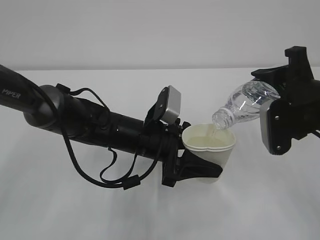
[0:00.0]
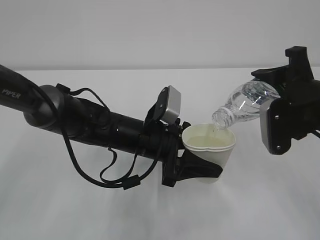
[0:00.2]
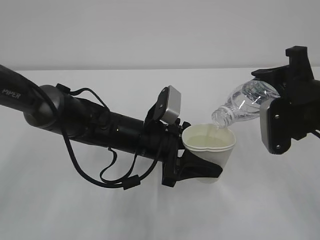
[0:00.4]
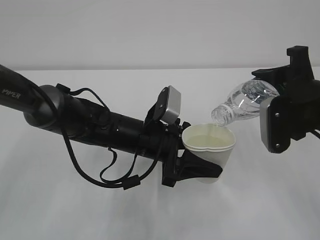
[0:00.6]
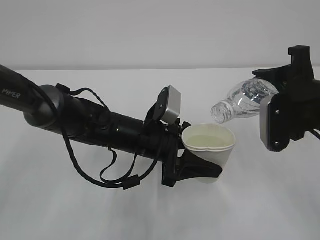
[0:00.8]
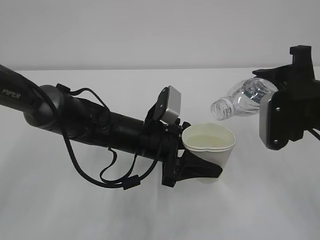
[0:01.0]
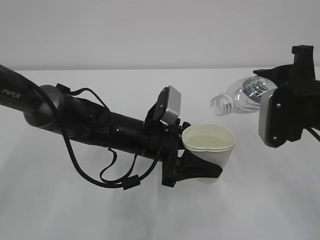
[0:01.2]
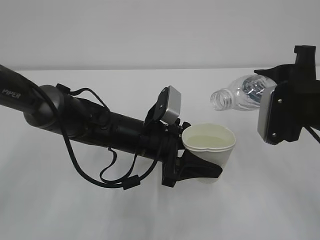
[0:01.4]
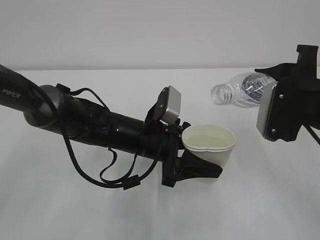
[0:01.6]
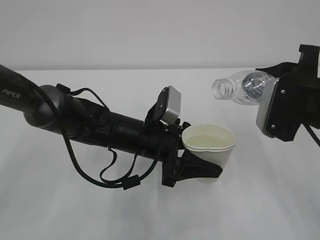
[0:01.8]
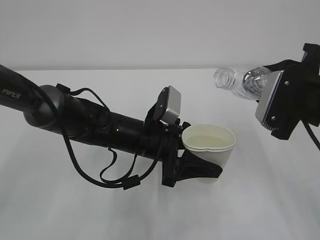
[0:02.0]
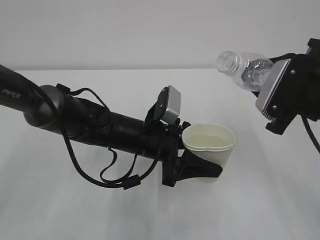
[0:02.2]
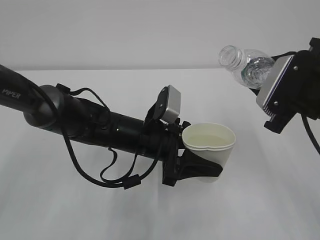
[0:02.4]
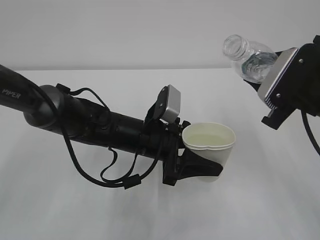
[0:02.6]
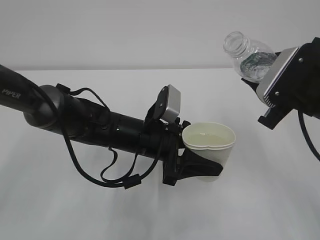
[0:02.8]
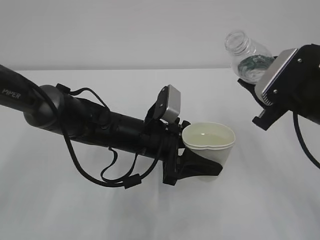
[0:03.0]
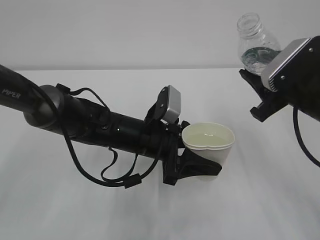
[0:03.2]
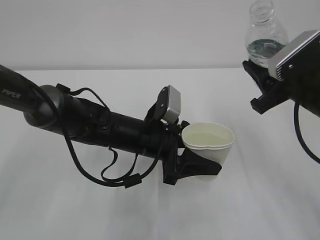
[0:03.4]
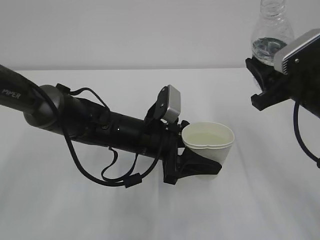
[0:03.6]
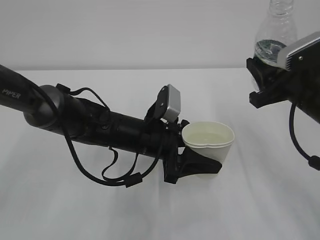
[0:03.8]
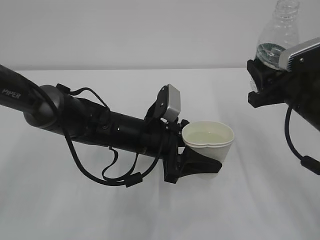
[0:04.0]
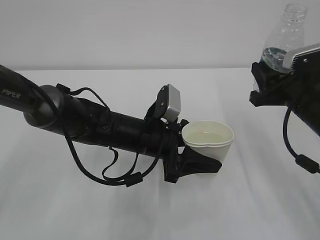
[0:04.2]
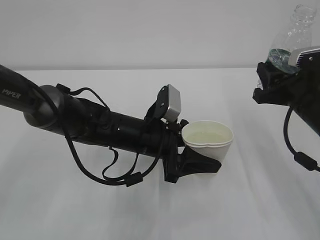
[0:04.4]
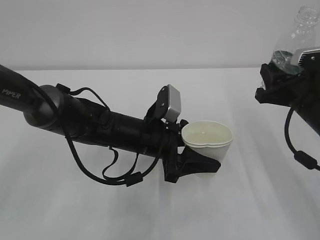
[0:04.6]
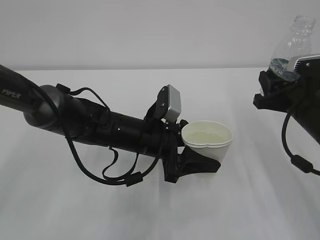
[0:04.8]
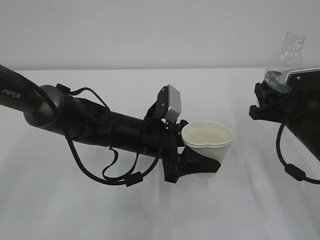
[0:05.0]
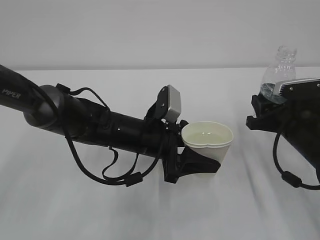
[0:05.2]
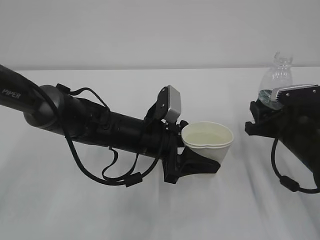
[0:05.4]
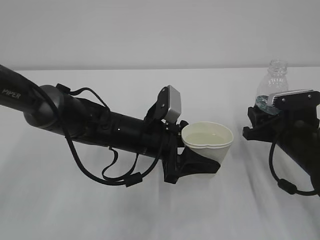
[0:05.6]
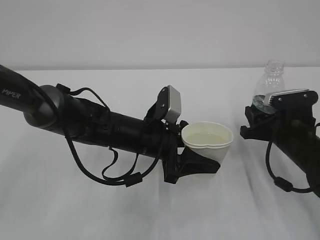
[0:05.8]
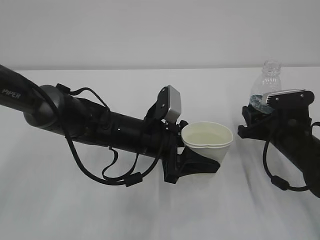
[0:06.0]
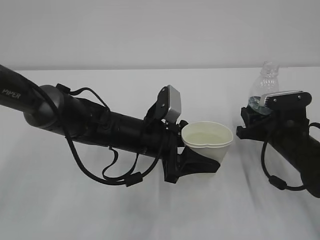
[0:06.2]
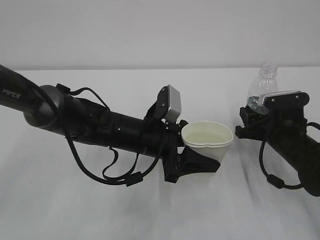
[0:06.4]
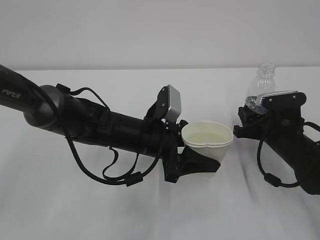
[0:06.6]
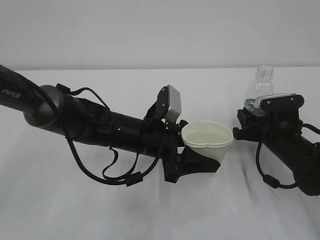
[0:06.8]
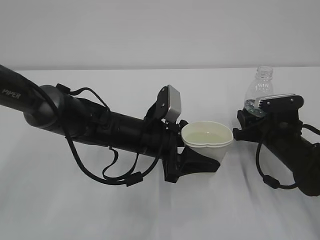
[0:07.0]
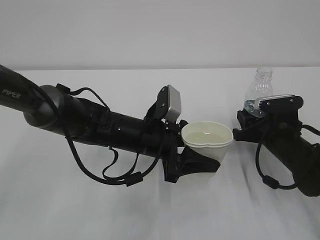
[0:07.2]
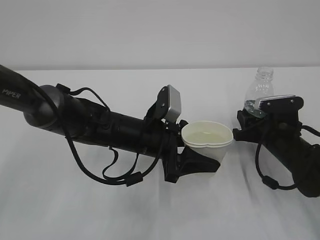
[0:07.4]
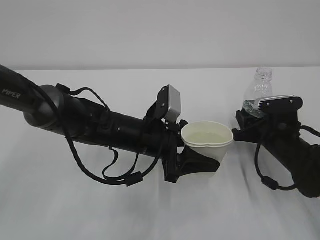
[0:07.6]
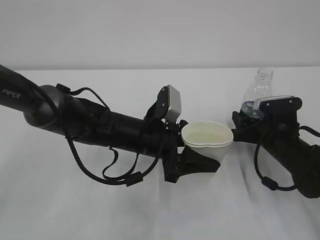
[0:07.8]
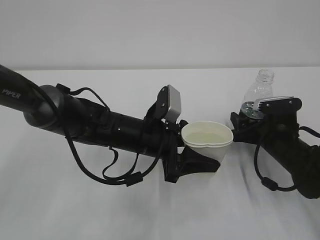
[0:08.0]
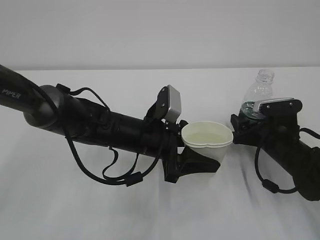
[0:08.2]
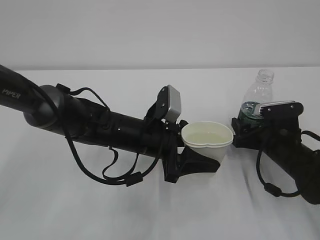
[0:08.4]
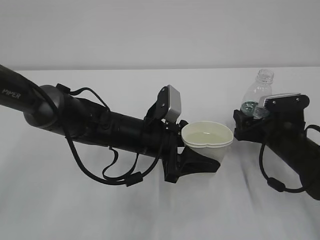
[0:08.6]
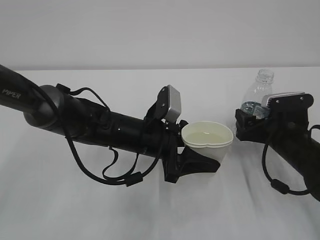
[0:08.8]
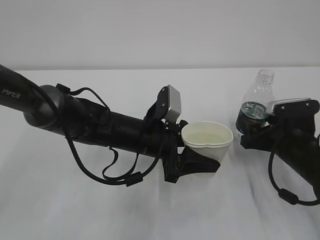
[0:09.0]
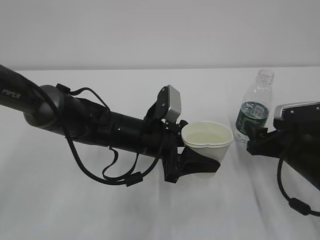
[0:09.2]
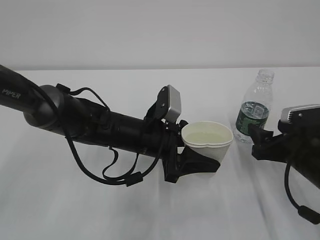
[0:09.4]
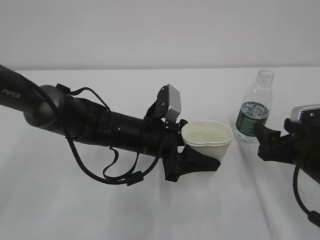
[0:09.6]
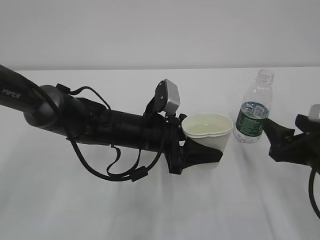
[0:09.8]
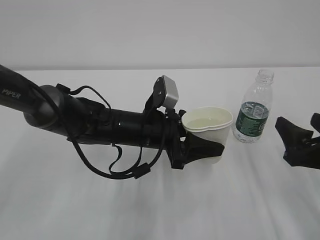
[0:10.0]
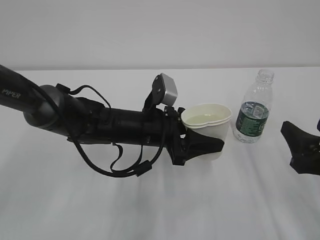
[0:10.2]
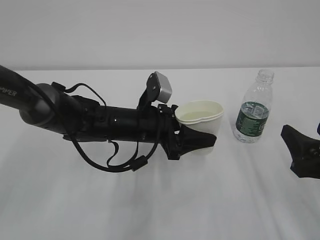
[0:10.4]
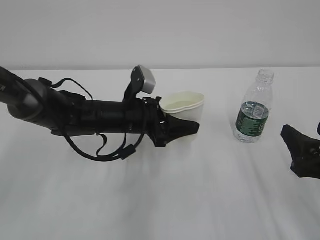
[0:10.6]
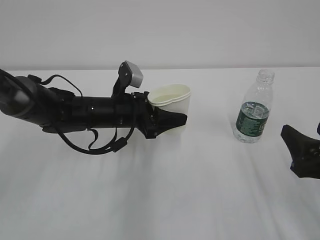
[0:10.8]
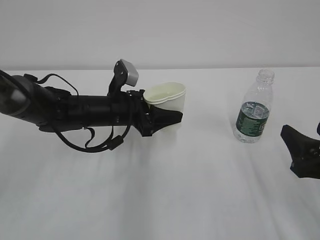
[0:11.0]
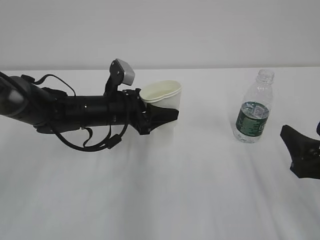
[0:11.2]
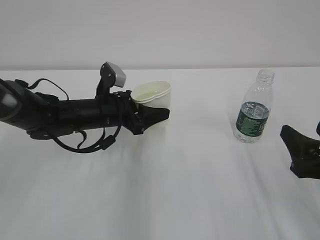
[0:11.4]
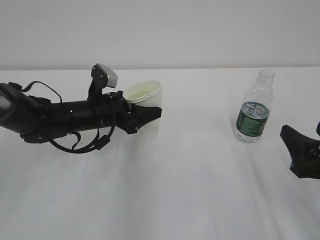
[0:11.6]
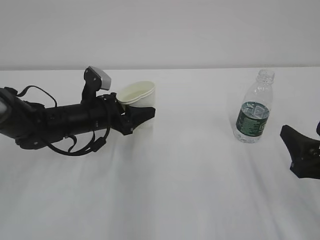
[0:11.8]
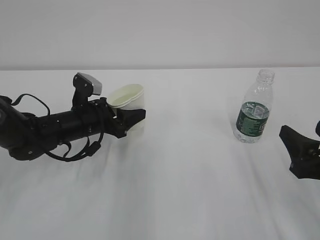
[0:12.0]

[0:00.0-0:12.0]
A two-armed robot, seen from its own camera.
0:00.0 to 0:01.6: The grippers make only small movements.
0:04.4 to 0:06.0: The right gripper shifts about 10 cm downward.
0:06.0 to 0:07.6: There are only small adjustments of the grippers.
0:07.6 to 0:09.0: The right gripper opens.
0:09.0 to 0:10.4: The right gripper travels backward and upward by approximately 15 cm.
0:10.4 to 0:12.0: The left gripper goes approximately 10 cm to the left.

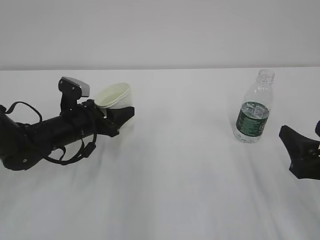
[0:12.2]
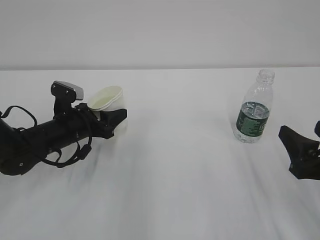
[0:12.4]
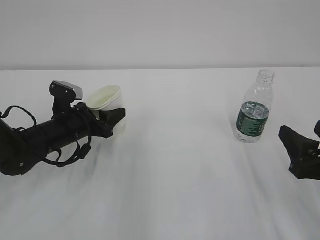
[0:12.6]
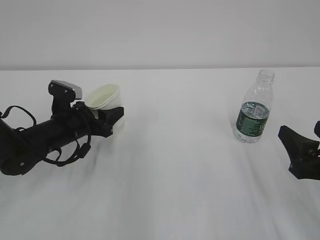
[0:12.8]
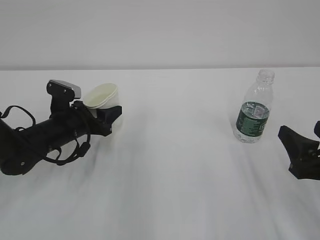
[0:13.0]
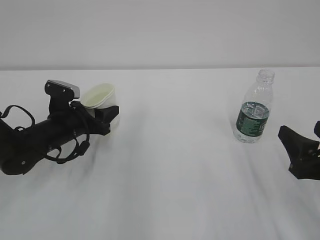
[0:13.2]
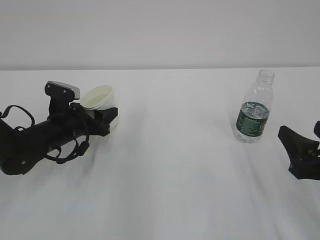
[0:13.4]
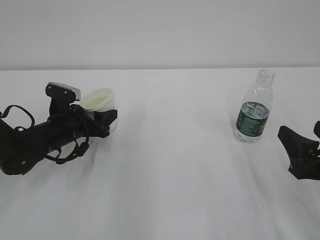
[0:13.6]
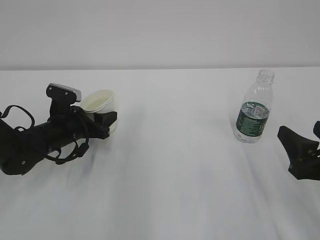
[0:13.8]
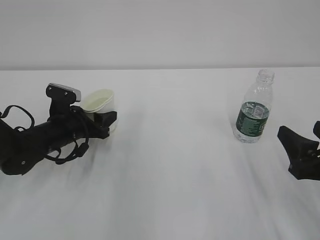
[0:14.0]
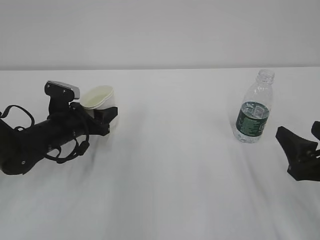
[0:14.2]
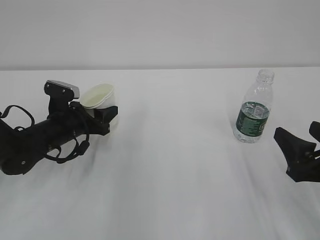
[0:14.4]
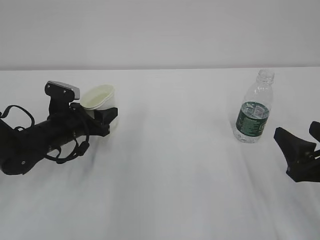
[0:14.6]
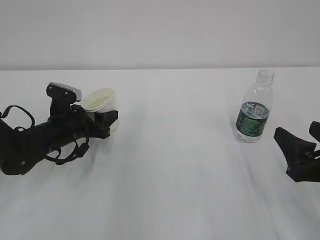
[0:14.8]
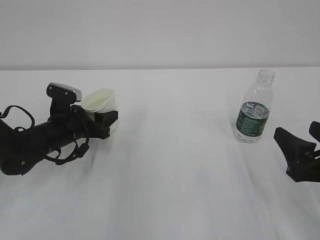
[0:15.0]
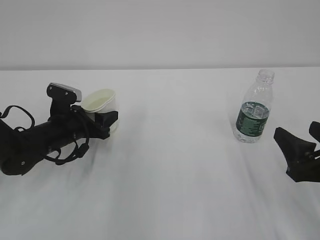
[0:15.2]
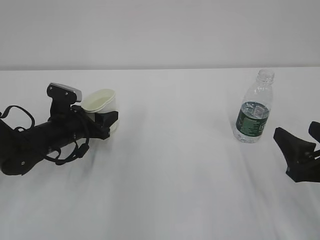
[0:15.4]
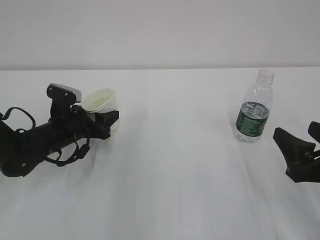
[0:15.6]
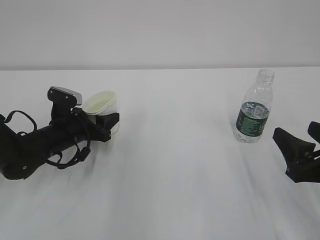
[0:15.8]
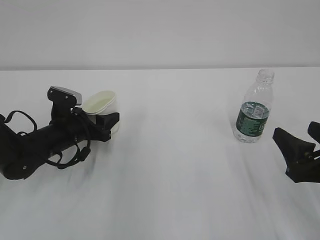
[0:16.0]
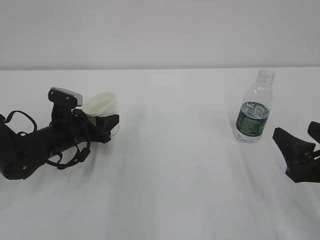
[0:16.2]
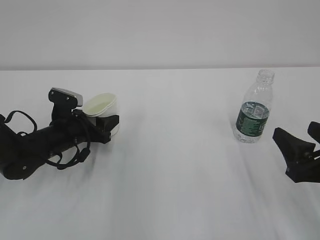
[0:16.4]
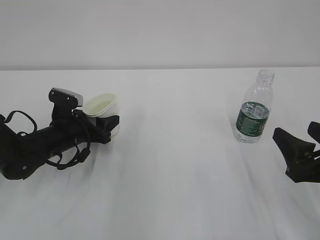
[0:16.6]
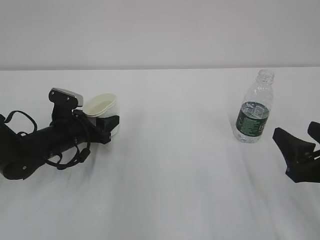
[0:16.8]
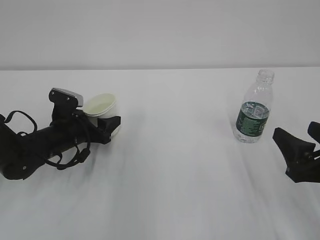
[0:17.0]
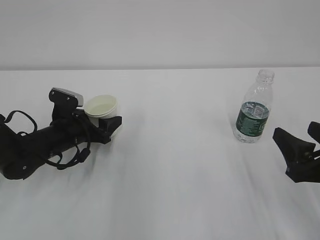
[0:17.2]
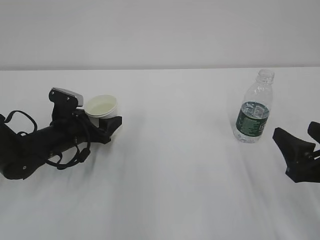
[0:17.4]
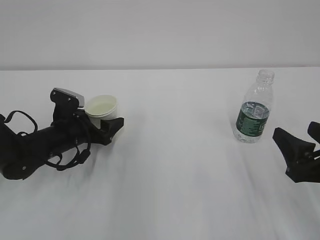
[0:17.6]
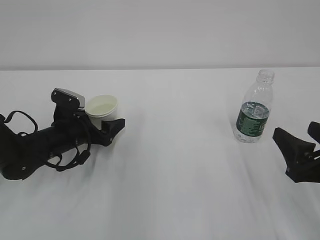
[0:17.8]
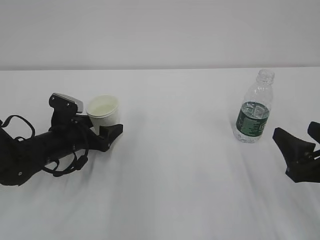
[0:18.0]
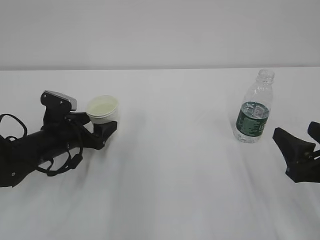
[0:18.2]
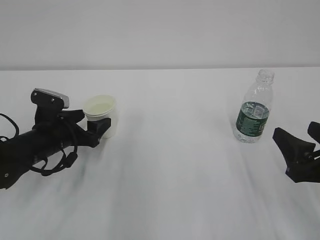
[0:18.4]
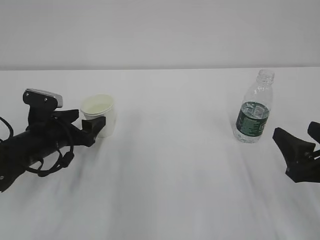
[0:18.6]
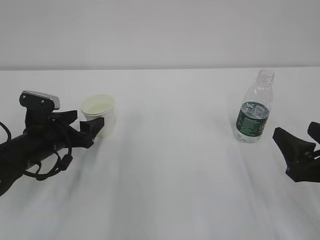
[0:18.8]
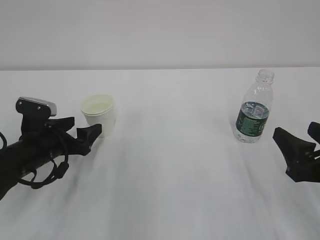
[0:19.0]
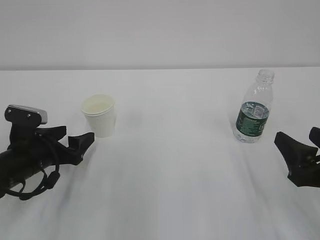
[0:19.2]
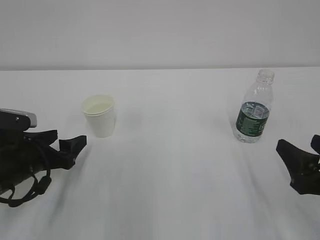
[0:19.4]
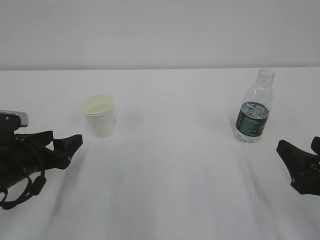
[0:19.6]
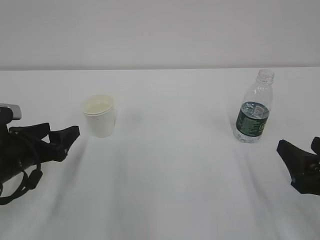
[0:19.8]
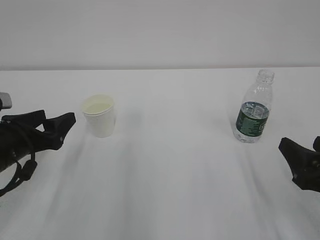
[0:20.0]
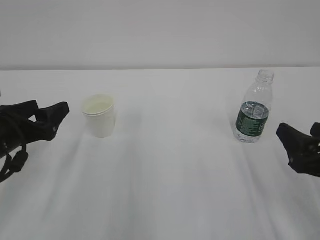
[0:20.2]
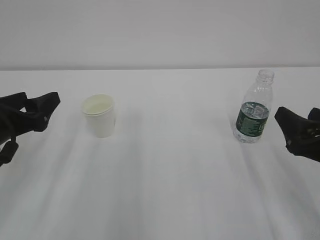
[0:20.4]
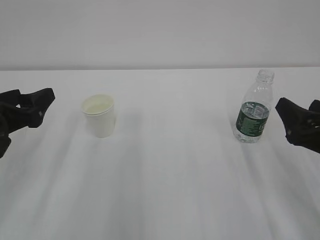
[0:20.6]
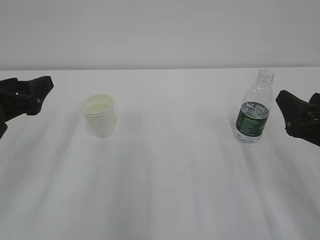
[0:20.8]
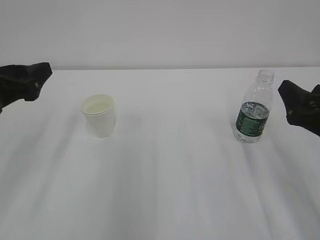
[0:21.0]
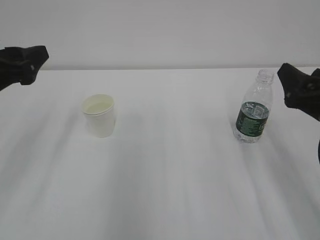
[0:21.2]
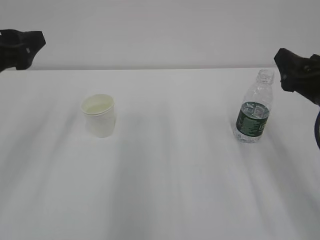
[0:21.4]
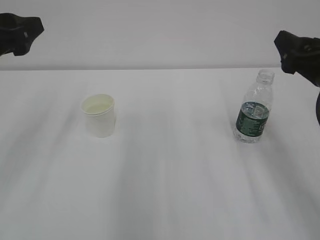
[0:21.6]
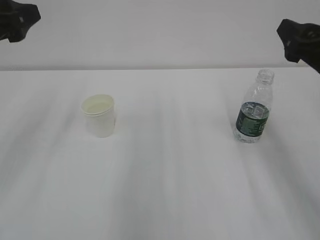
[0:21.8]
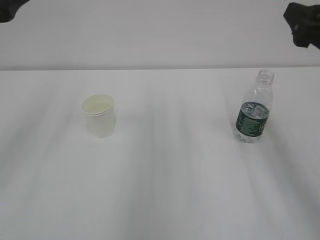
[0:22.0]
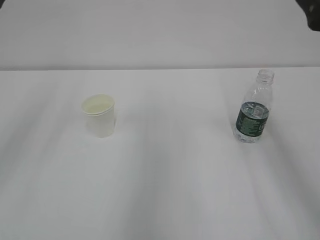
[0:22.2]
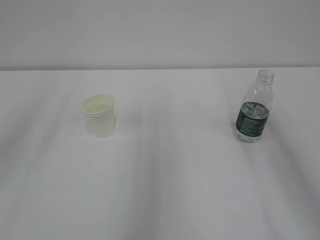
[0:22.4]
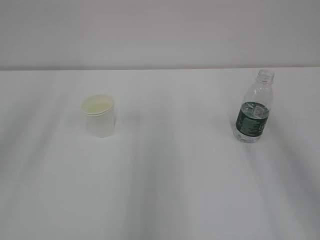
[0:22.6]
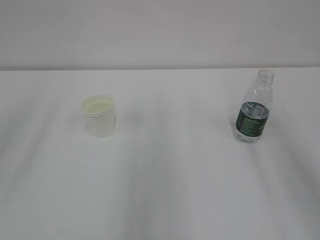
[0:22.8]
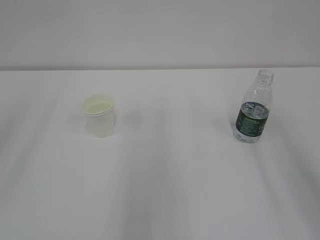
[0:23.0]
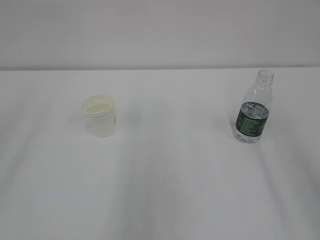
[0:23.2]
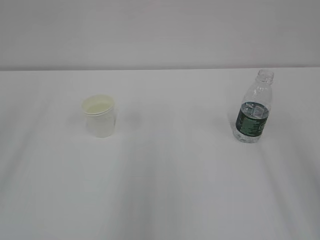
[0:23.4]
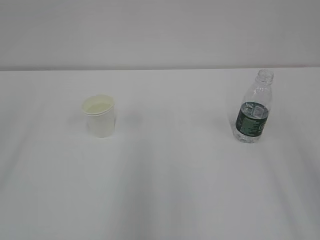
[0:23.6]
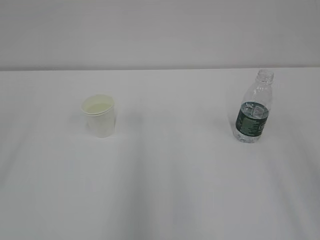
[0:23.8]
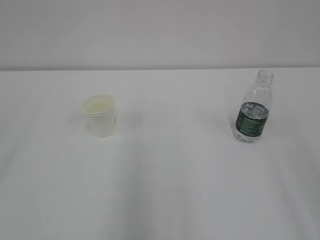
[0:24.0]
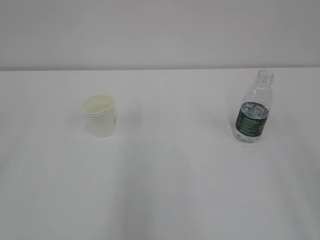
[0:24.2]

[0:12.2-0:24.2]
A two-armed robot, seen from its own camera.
0:12.2 to 0:13.8: The grippers stay close to where they were, moving slightly.
0:13.8 to 0:16.6: Neither gripper changes place.
0:16.6 to 0:18.2: The left gripper opens.
0:18.2 to 0:19.8: The left gripper moves backward, roughly 10 cm.
0:19.8 to 0:21.2: The left gripper shifts roughly 15 cm upward. The right gripper heads forward and upward, covering roughly 10 cm.
0:21.2 to 0:22.6: The two grippers go approximately 15 cm upward.
